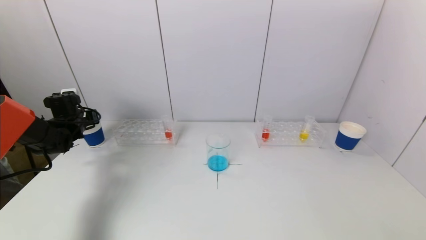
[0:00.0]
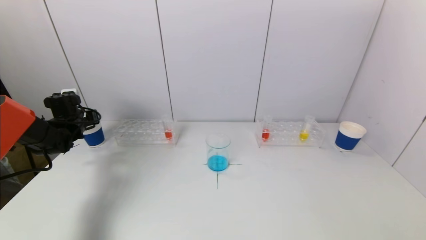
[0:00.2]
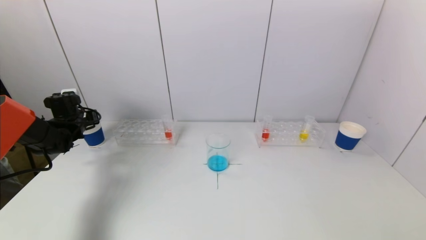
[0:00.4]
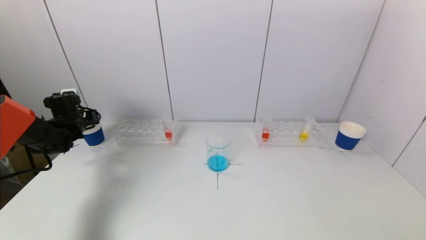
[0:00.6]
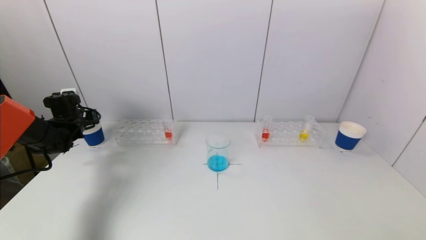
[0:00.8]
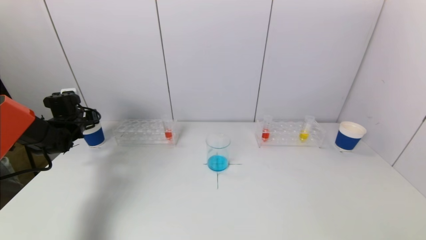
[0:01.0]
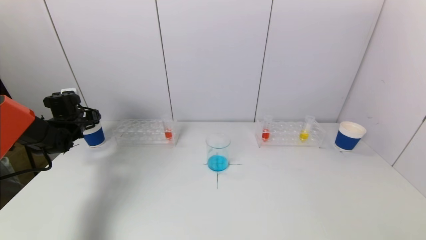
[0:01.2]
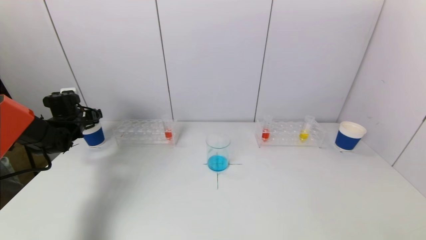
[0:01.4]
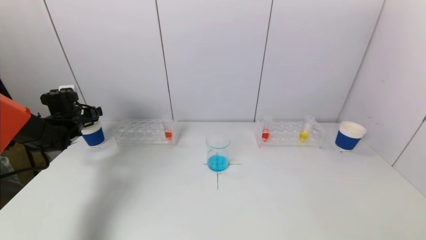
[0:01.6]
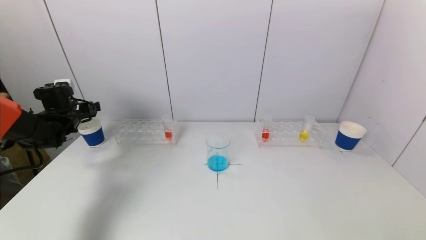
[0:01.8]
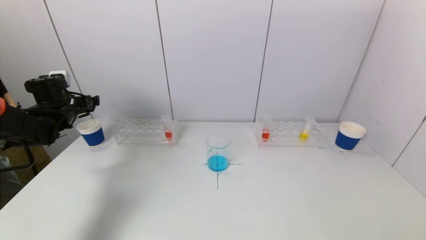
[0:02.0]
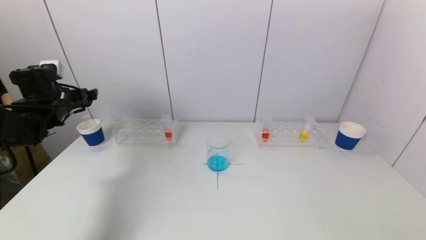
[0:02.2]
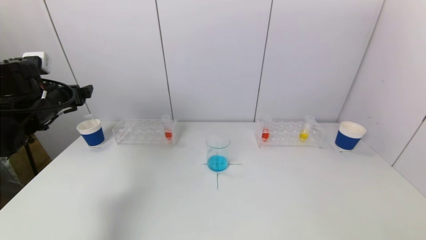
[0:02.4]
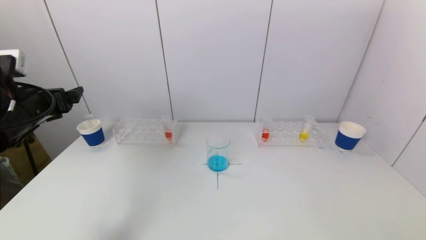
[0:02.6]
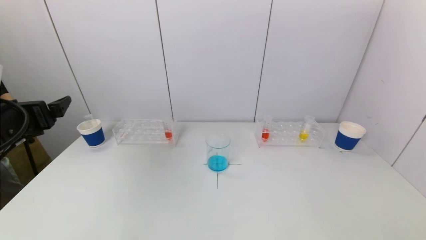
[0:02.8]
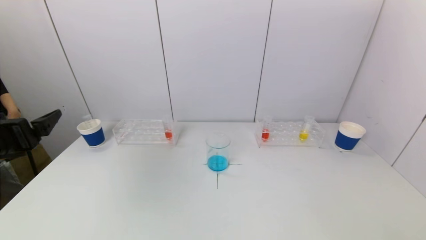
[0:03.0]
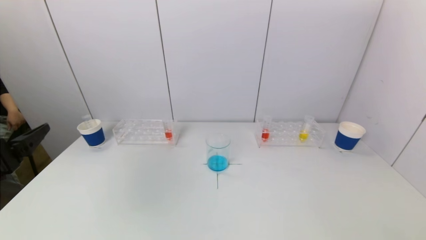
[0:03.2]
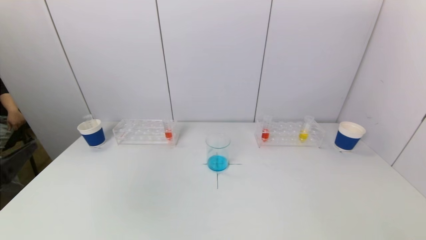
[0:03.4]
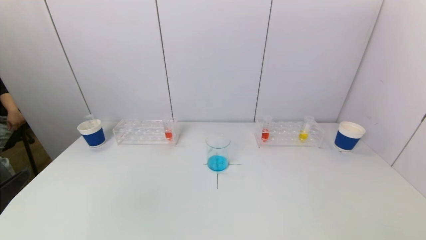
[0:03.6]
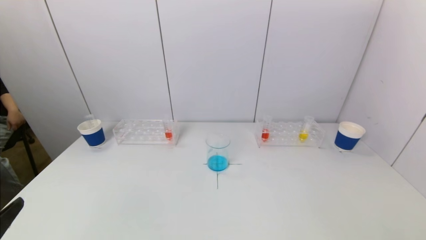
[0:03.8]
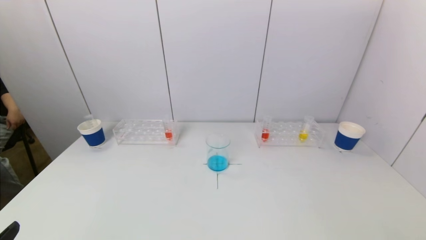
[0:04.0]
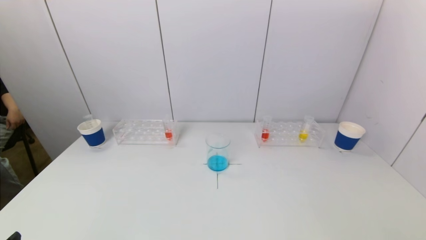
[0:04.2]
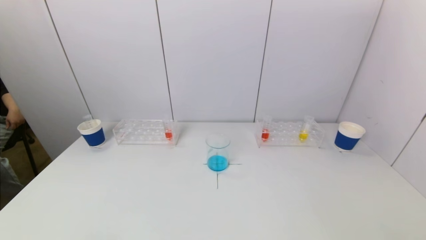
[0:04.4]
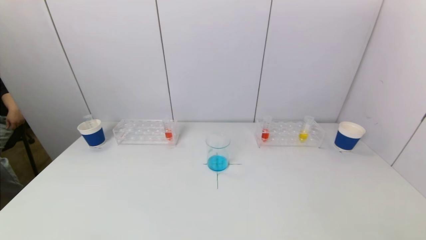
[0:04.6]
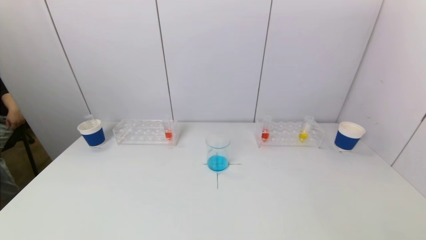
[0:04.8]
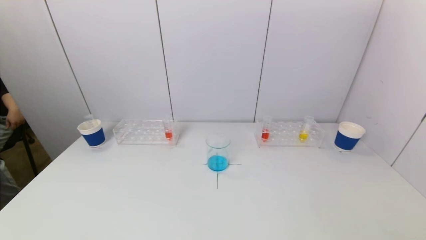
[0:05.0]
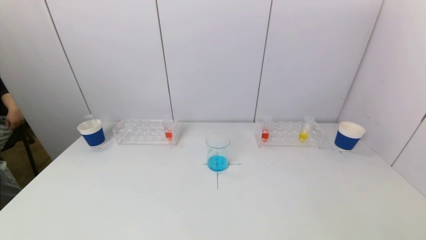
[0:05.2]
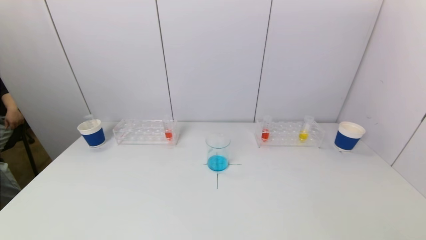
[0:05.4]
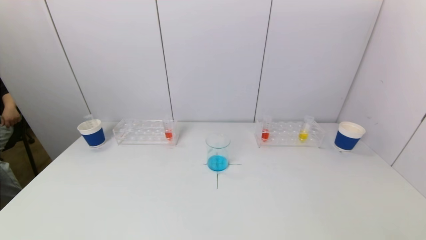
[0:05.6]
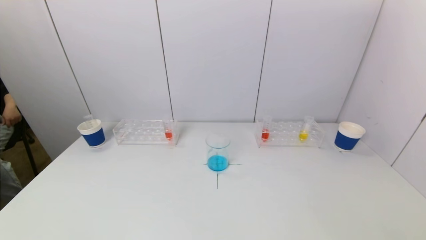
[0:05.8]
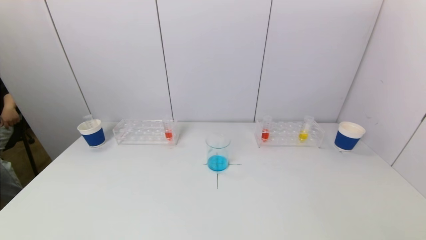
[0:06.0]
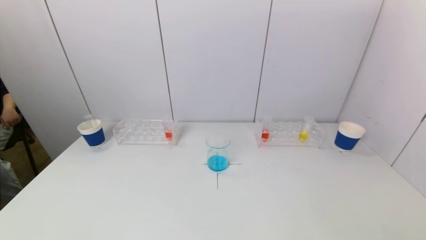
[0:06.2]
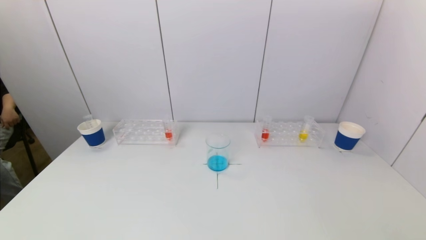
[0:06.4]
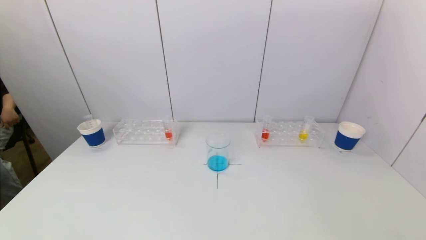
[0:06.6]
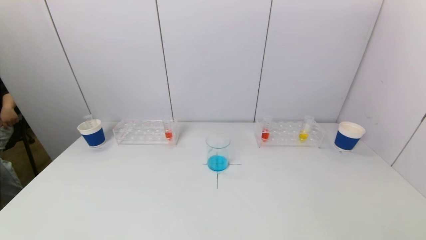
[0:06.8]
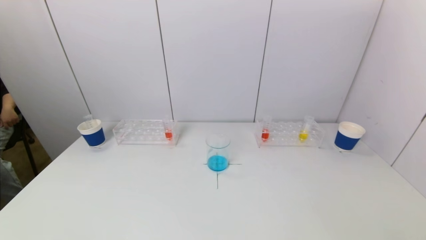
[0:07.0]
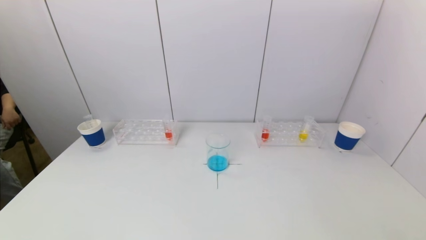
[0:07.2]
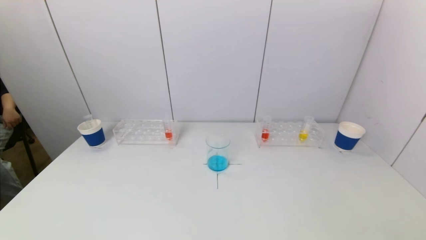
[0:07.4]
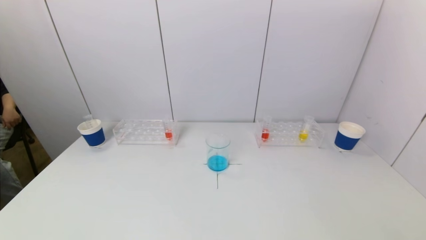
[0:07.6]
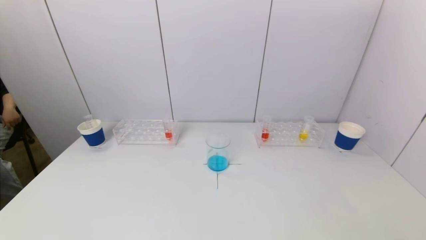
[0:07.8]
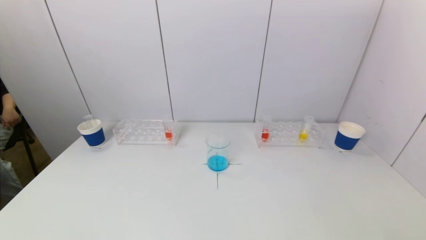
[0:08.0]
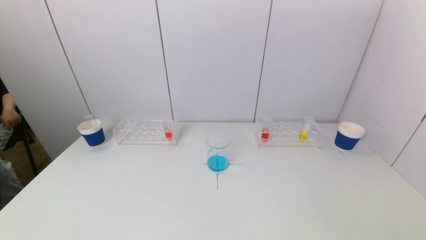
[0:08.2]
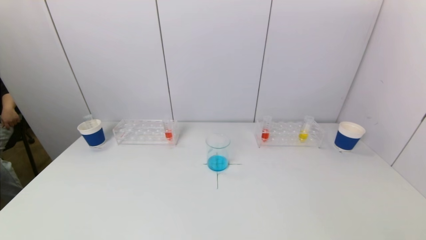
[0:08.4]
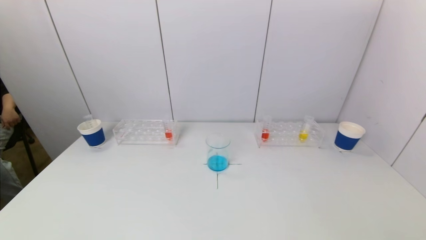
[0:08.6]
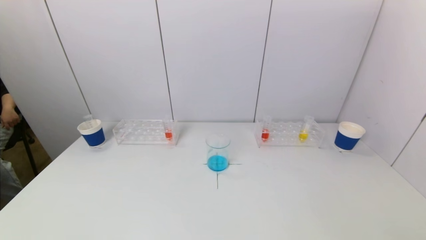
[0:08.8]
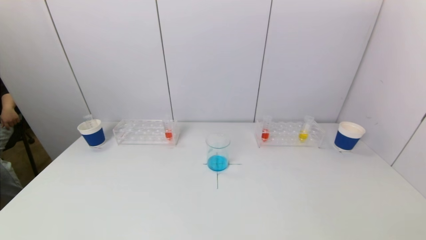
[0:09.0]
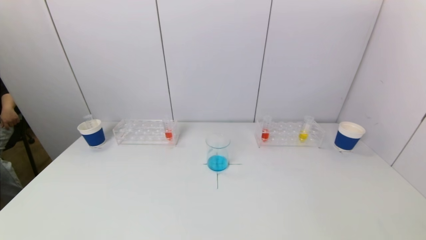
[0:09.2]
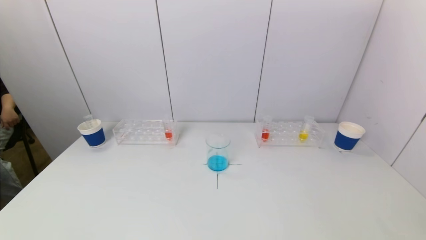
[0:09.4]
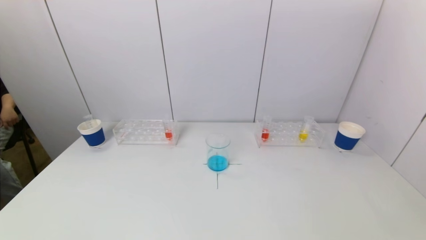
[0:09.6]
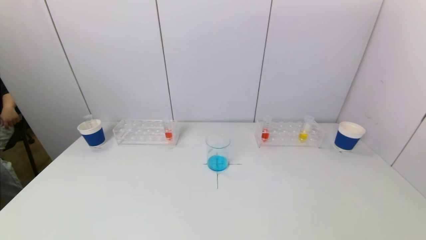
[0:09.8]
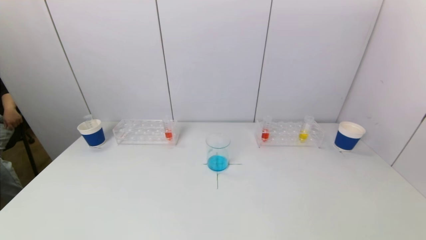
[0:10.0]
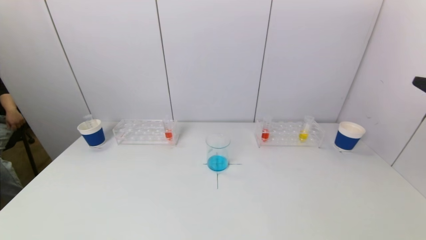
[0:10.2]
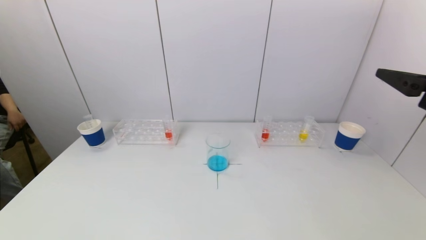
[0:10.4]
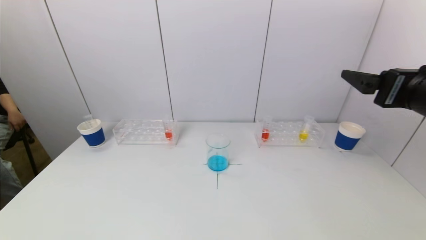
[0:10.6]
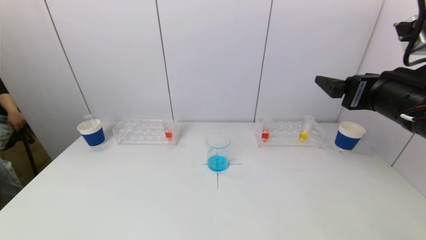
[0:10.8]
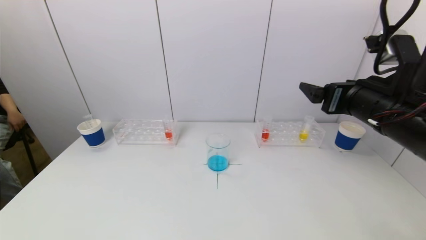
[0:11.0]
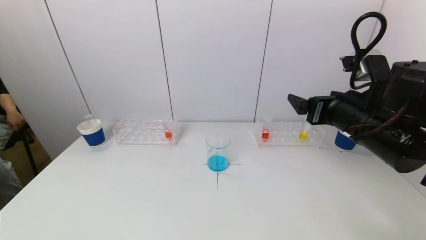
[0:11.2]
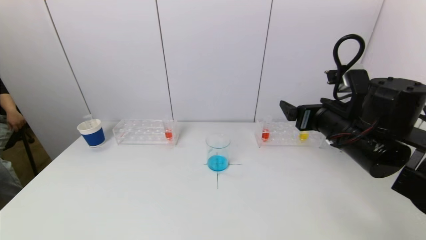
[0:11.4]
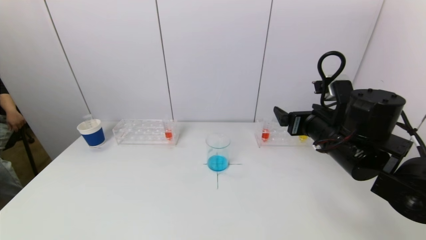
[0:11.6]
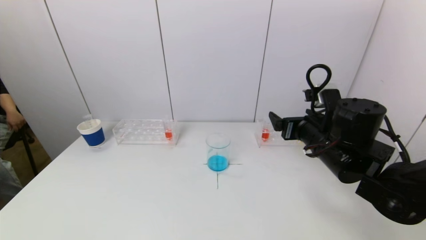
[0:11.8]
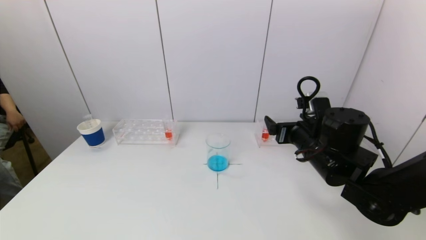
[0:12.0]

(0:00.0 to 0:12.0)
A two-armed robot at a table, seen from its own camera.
Task of the whole recording: pick up a test tube with pigment on left test tube rack and a test tube with pigment on right test tube rack by grippers and pour them into the beaker.
0:00.0 - 0:01.6: The left gripper opens its fingers.
0:01.6 - 0:03.0: The left gripper heads backward, covering approximately 30 cm.
0:03.0 - 0:04.4: The left gripper moves backward and downward, about 20 cm.
0:06.0 - 0:07.6: Both grippers stay put.
0:09.0 - 0:10.4: The right gripper moves forward and upward, approximately 25 cm.
0:10.4 - 0:12.0: The right gripper moves downward, forward and to the left, about 25 cm.

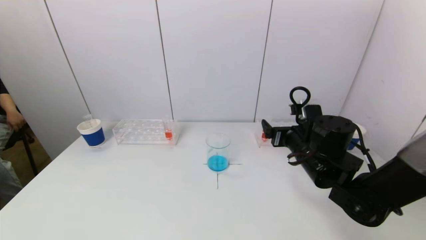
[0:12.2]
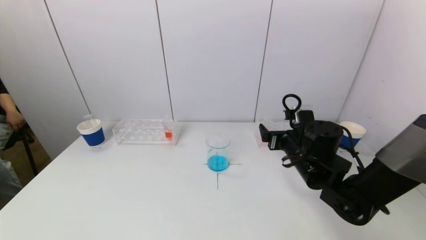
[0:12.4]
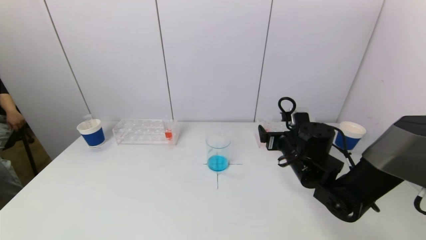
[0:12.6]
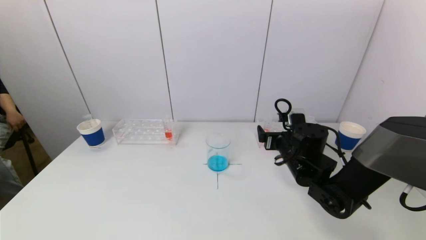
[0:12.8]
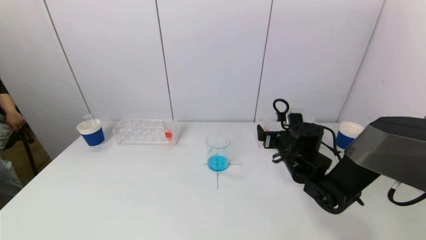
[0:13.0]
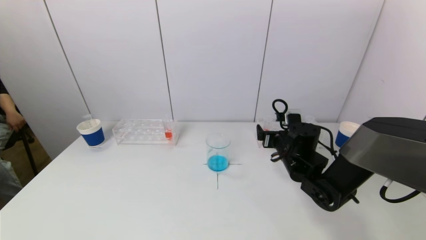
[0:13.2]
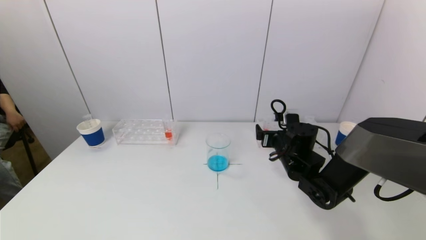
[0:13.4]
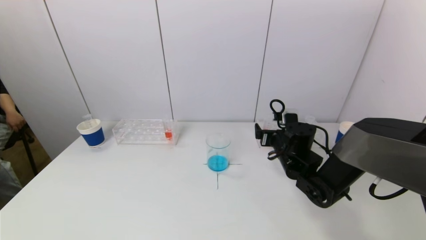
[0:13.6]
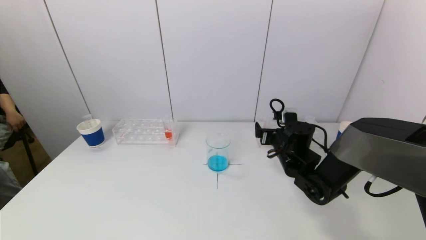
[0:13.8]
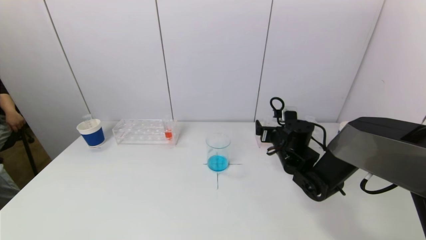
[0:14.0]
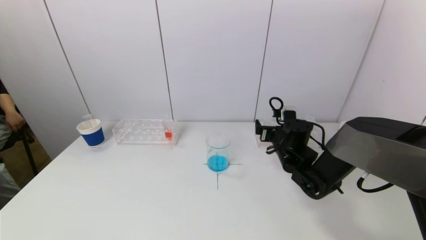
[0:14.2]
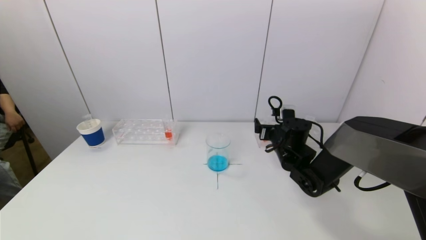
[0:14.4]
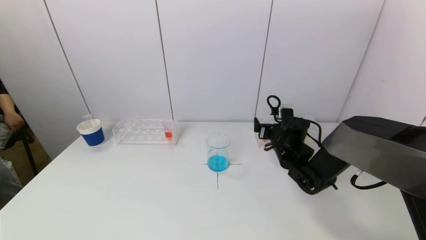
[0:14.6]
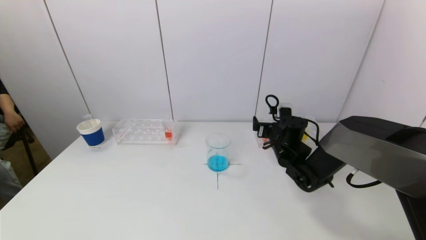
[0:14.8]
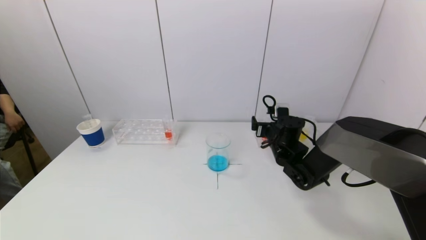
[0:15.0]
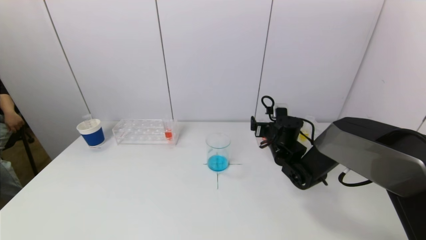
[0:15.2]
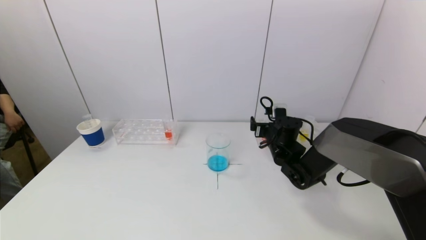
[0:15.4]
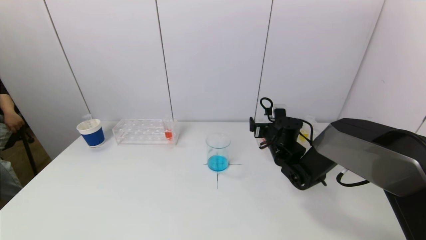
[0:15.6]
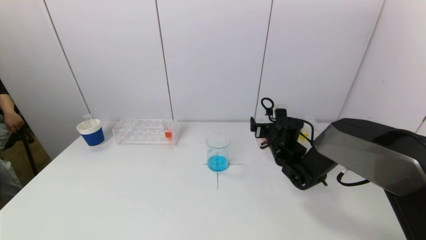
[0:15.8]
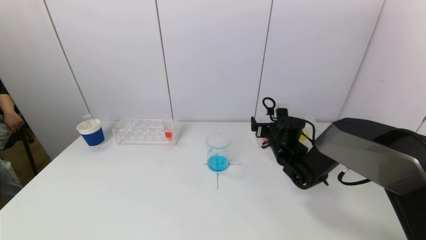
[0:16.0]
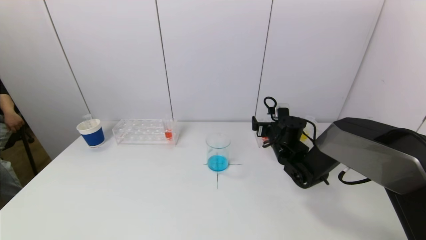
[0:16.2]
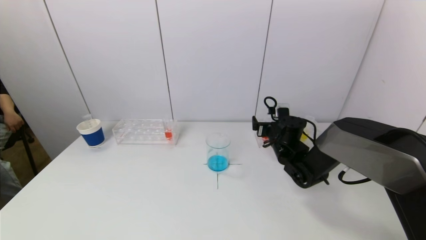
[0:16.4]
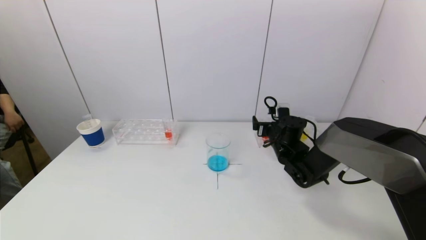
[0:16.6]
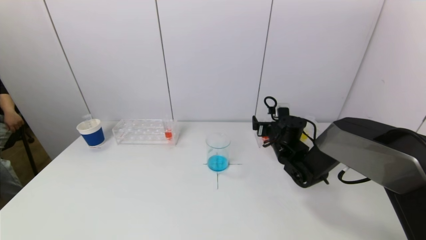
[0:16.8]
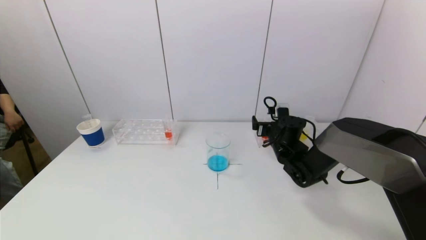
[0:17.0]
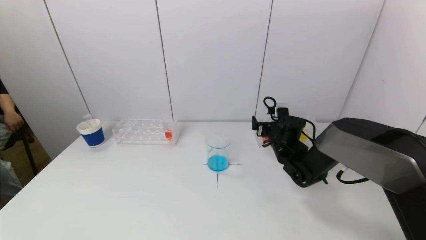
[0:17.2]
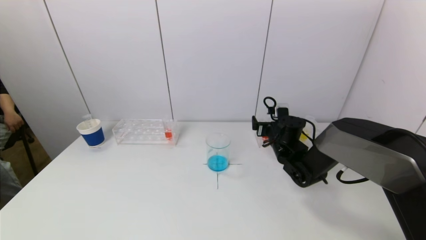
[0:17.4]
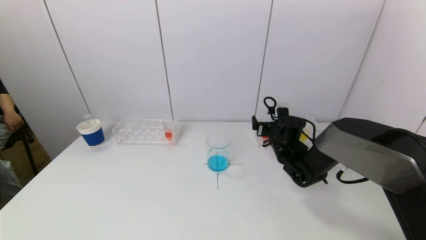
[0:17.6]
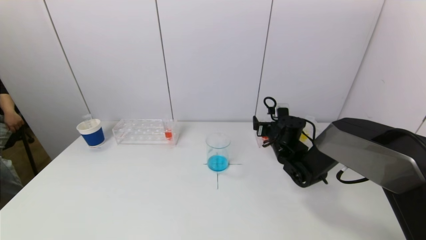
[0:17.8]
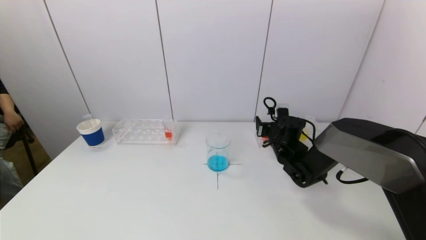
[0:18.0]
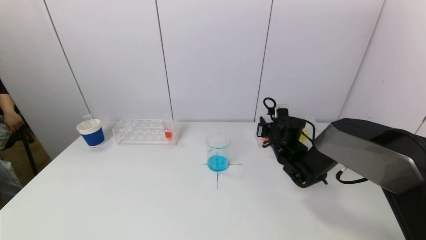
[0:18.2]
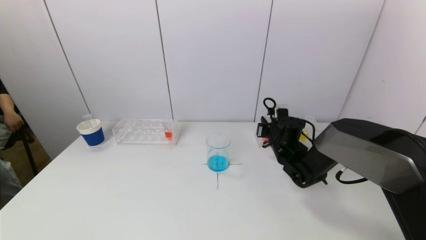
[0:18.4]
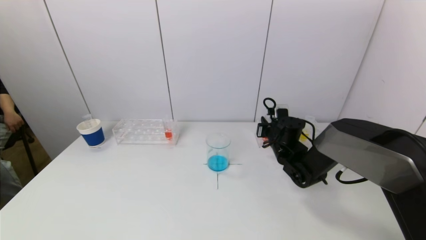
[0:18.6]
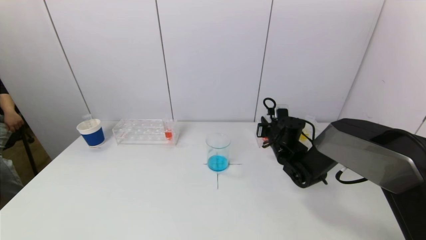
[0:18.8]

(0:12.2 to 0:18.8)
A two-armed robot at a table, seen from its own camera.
Task of the whole recording: pick up a test tube with pigment on left test tube rack and a test tube with pigment on right test tube rack by grippers and pour them into the beaker.
Step, 0:12.2 - 0:18.6: Grasp the red reagent with the right gripper.
0:12.2 - 0:13.8: The right gripper heads forward and downward, covering roughly 10 cm.
0:13.8 - 0:15.4: There are only small adjustments of the grippers.
0:15.4 - 0:17.2: Both grippers stay put.
0:17.2 - 0:18.8: The right gripper closes.
